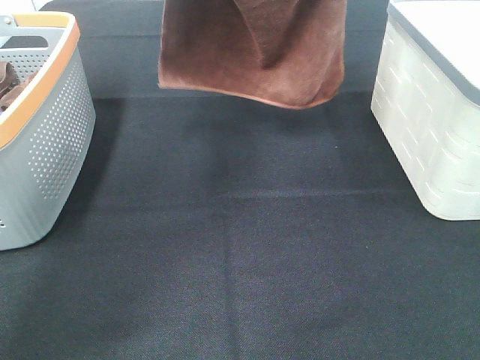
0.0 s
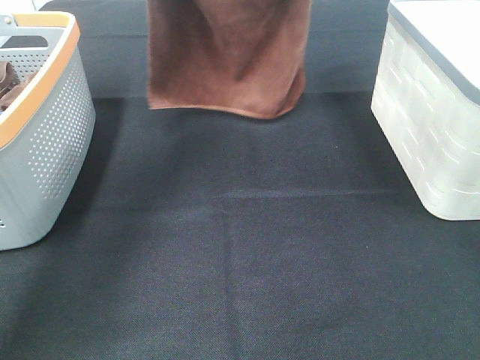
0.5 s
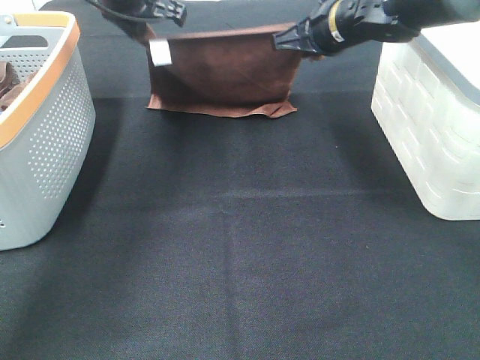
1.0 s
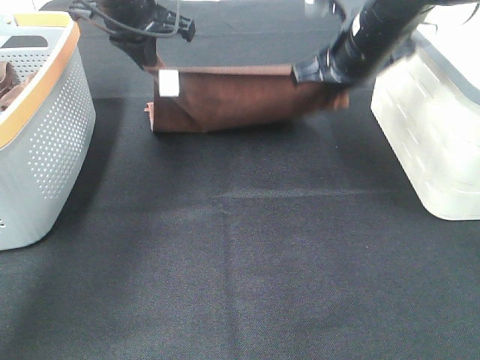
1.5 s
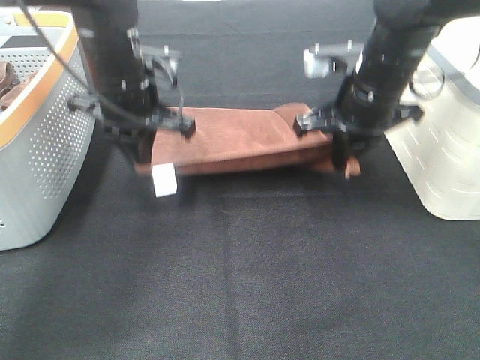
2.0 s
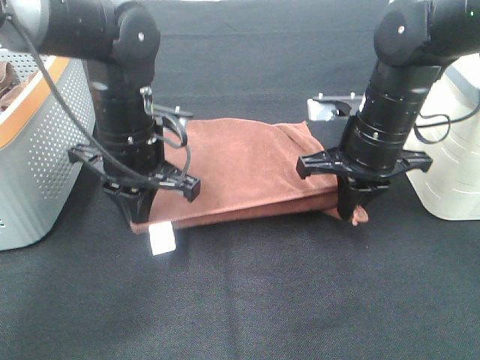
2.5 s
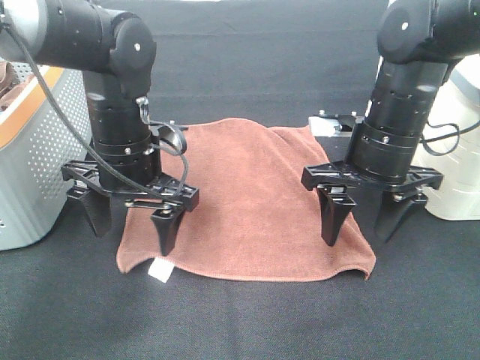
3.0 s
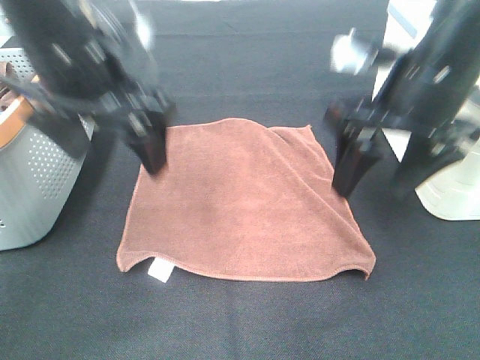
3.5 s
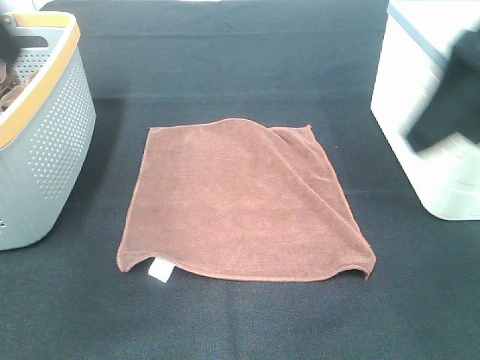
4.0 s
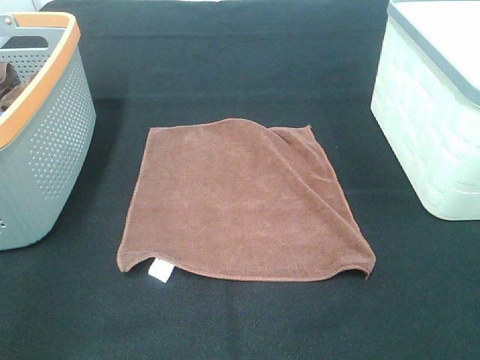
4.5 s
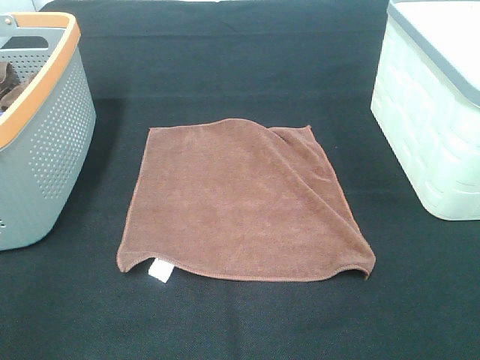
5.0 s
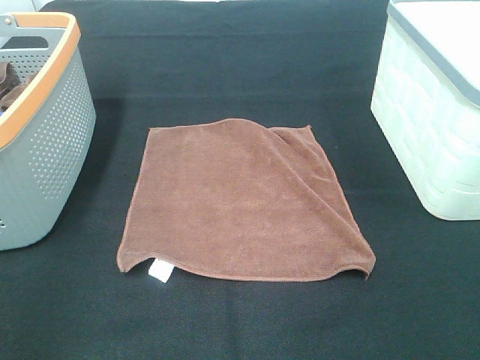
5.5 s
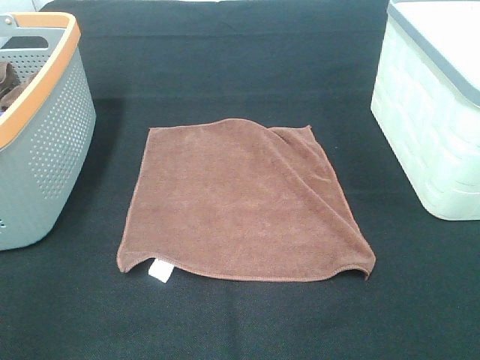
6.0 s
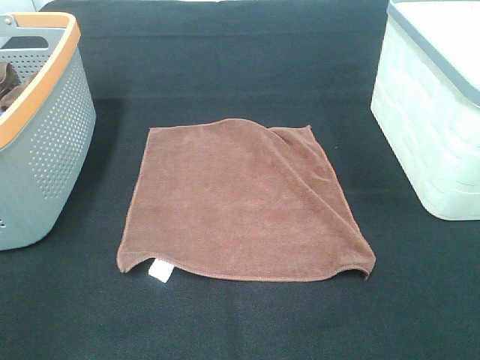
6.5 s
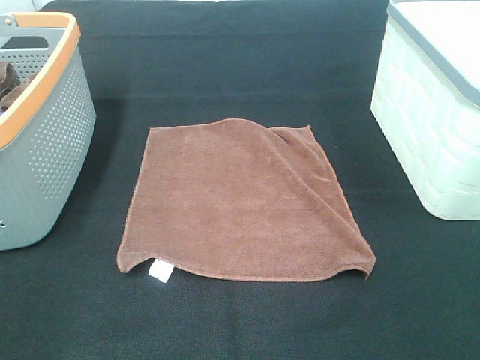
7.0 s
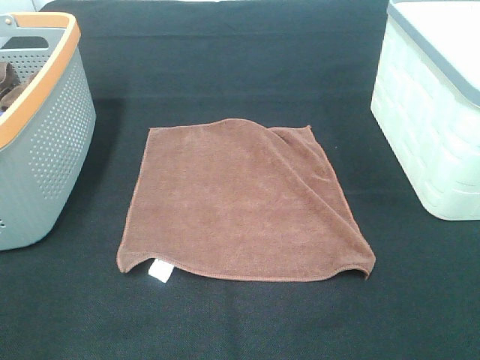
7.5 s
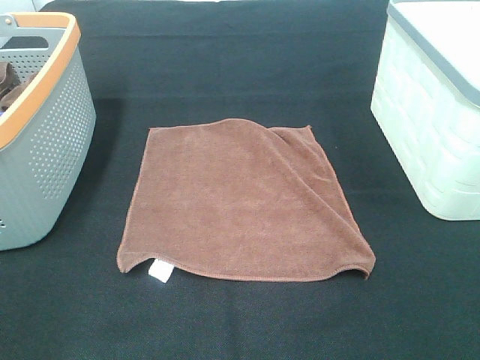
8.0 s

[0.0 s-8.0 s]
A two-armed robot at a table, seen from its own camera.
Task of the whole recording: Remove the towel and place it.
0.0 to 2.0 s: The grippers both shift downward by about 20 cm.
2.0 to 4.0 s: The left gripper shifts approximately 30 cm backward, upward and to the left, and opens up. Meanwhile the right gripper heads backward and upward, covering roughly 25 cm, and opens its fingers.
4.0 to 6.0 s: The right gripper travels backward, downward and to the right by approximately 15 cm. The left gripper is displaced backward, downward and to the left by some 20 cm.

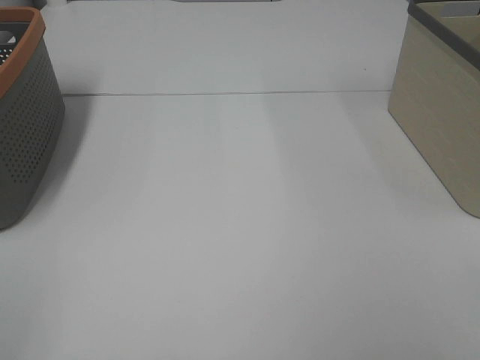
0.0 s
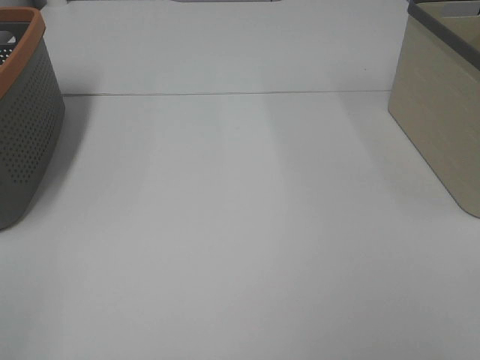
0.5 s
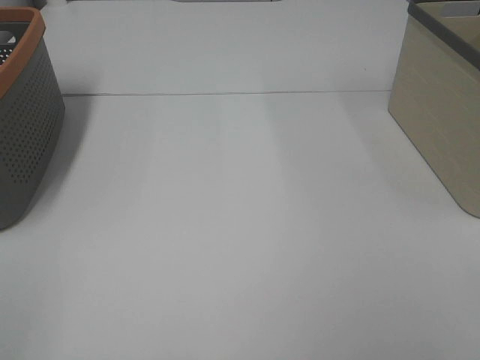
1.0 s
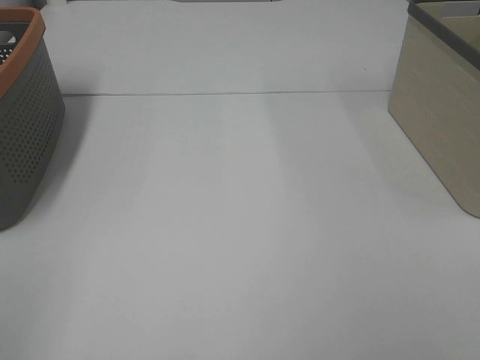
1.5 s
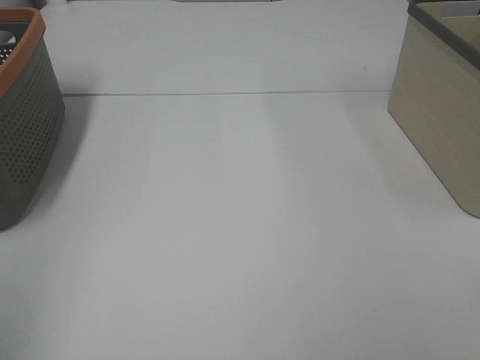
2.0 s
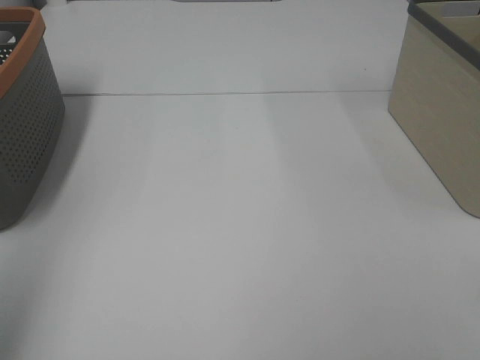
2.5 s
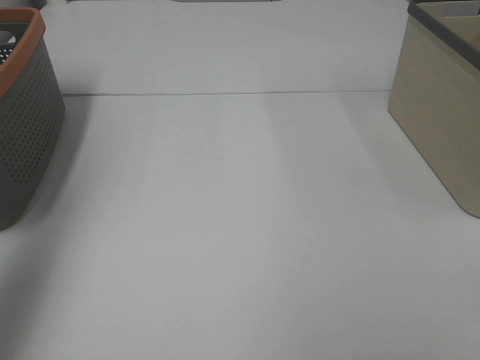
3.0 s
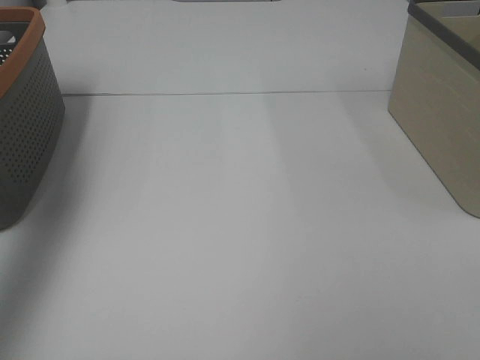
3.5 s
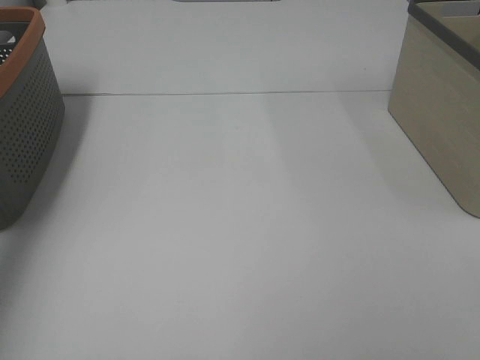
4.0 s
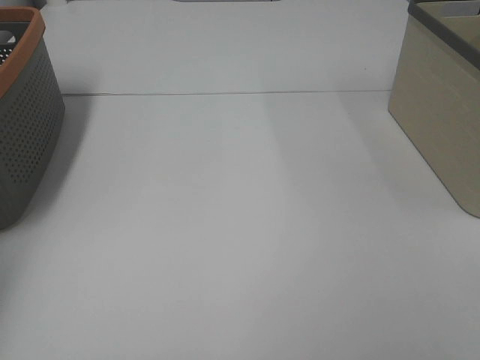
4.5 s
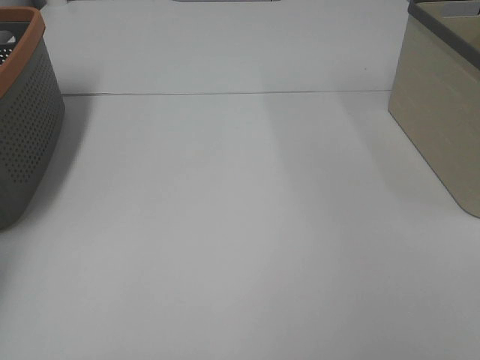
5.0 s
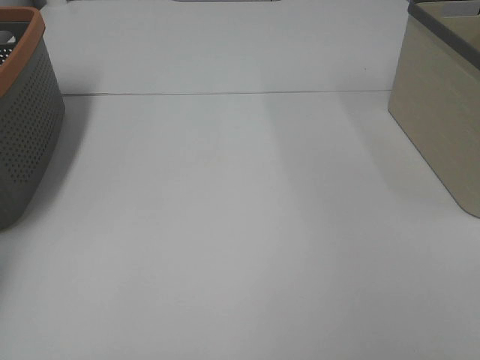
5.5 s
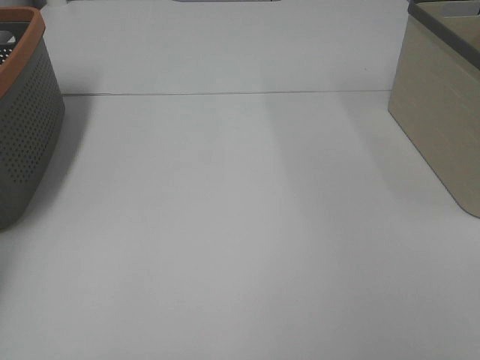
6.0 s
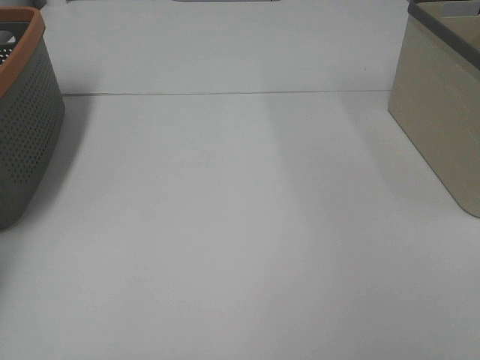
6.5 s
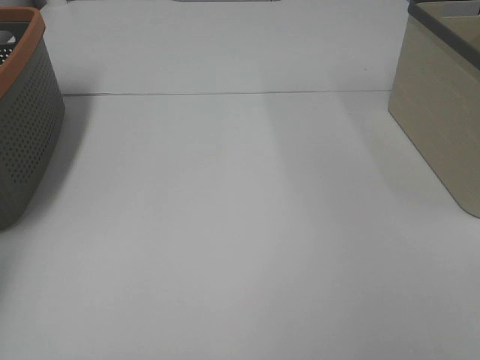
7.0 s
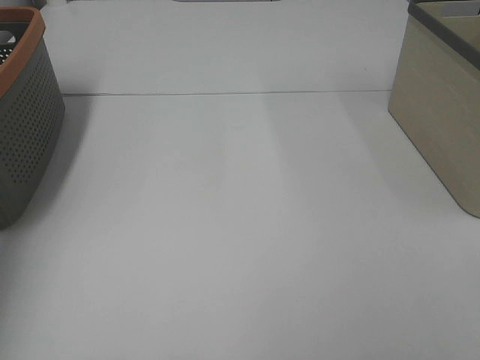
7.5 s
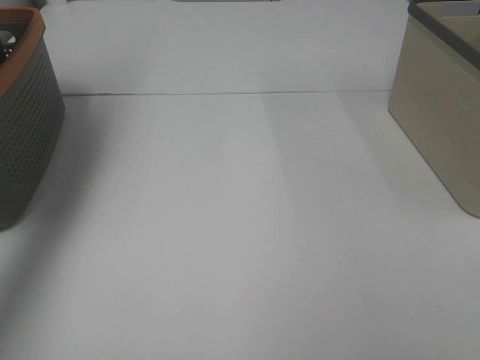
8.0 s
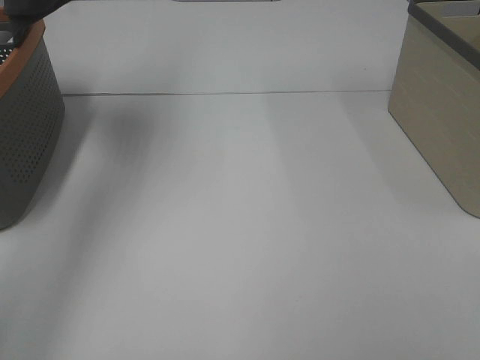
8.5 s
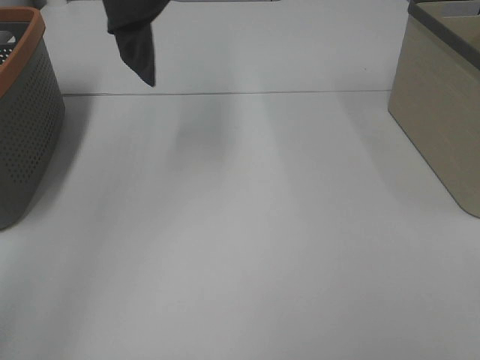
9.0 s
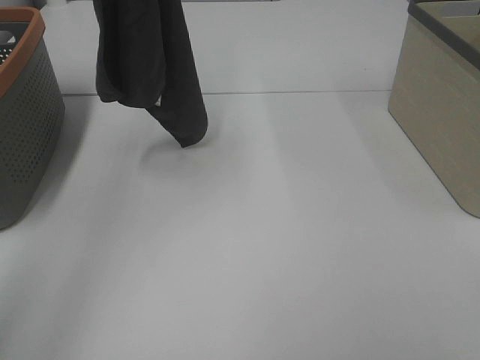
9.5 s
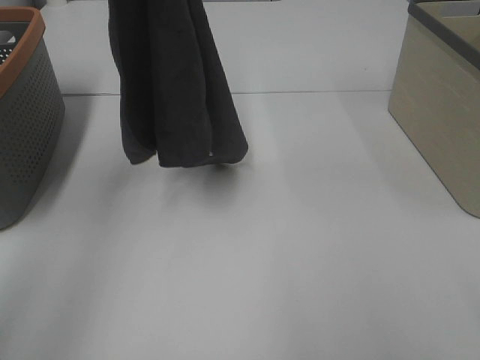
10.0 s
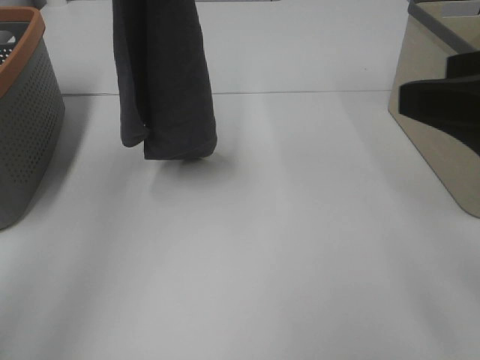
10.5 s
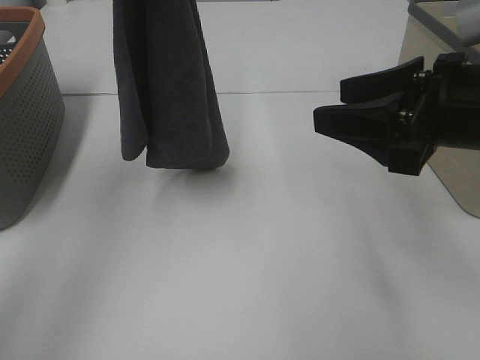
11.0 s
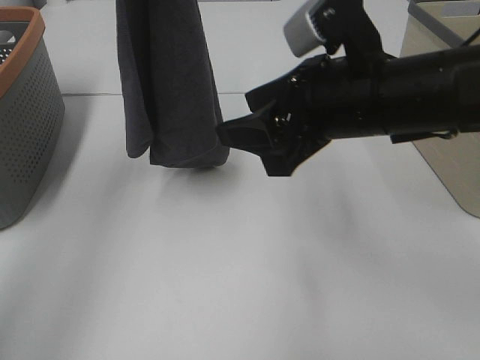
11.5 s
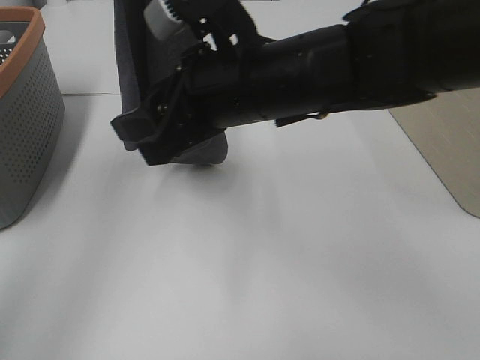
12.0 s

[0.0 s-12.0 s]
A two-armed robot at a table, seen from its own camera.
Task of the whole recording: Remove the towel and place it.
Step, 8.5 to 11.5 s: Right hand: grab a corner of the grey towel and straighten it.
2.0 to 4.0 s: The left gripper moves forward, approximately 35 cm.
4.0 to 6.0 s: The left gripper travels downward, forward and to the left by roughly 15 cm, and closes up.
6.0 to 8.0 s: The left gripper moves upward and to the right, about 30 cm, and closes its fingers.
8.0 to 10.0 s: The left gripper travels to the right by roughly 15 cm; the right gripper shifts by approximately 5 cm.
10.0 to 12.0 s: The right gripper travels to the left and forward by approximately 35 cm.

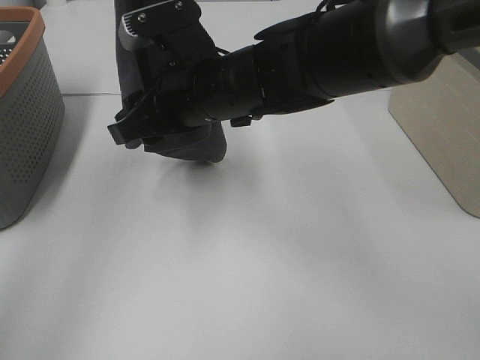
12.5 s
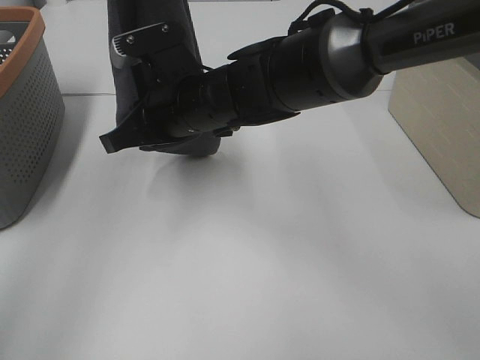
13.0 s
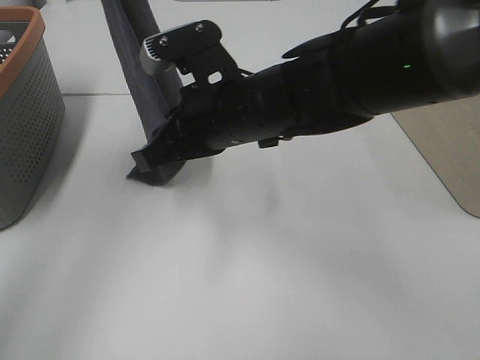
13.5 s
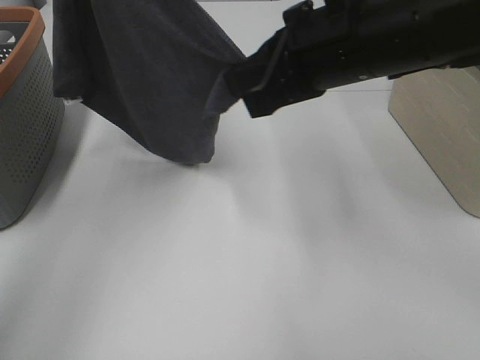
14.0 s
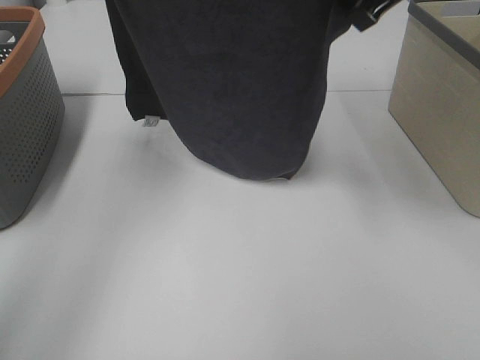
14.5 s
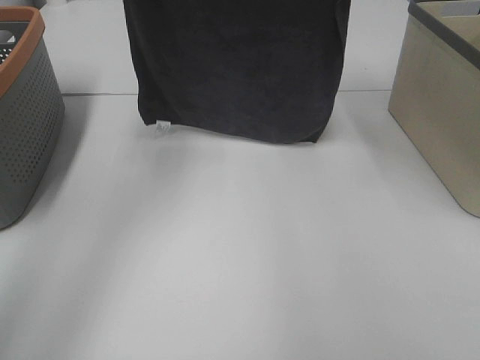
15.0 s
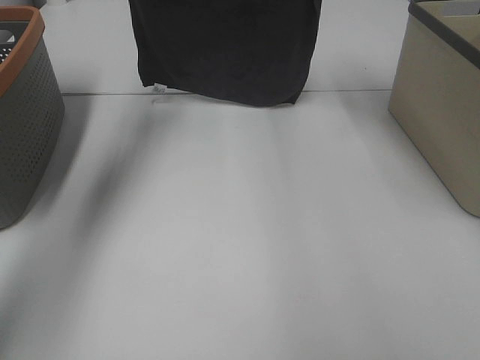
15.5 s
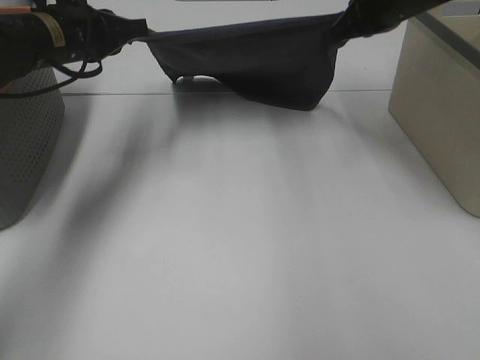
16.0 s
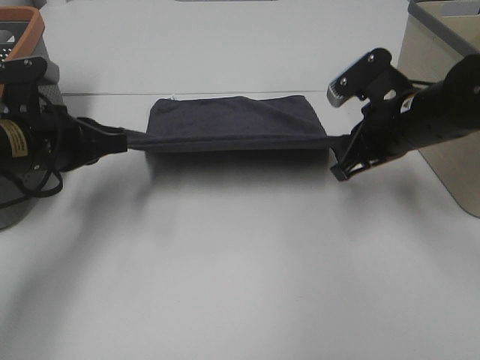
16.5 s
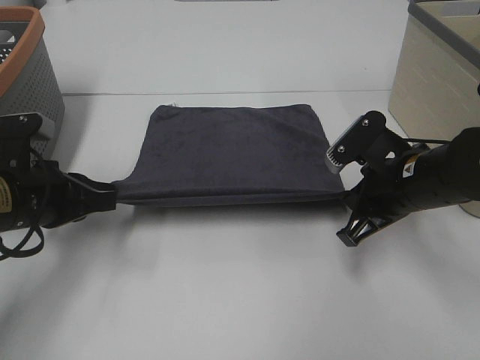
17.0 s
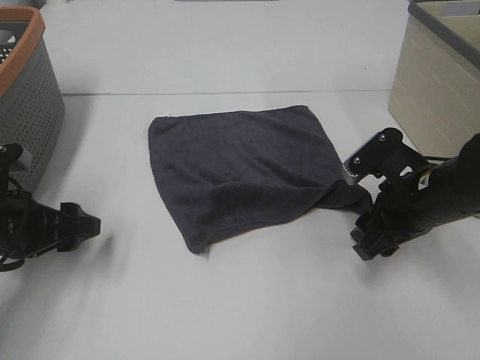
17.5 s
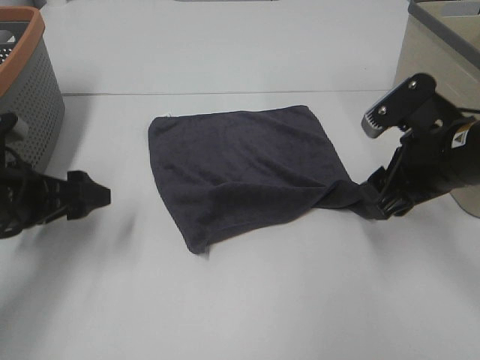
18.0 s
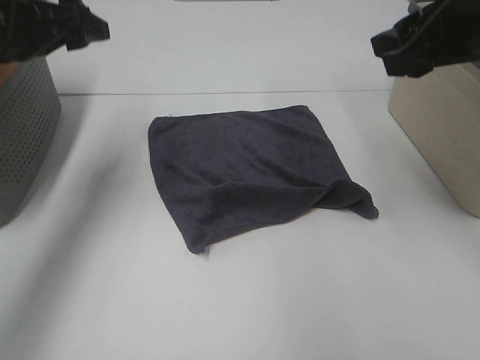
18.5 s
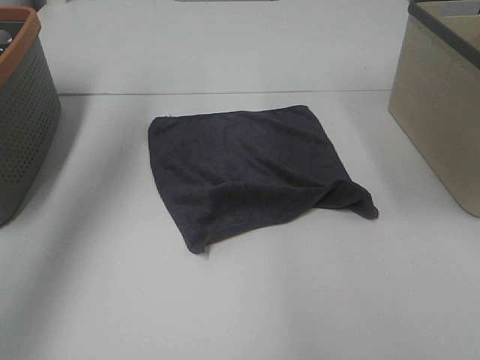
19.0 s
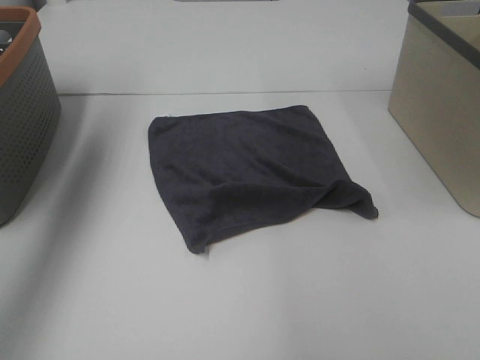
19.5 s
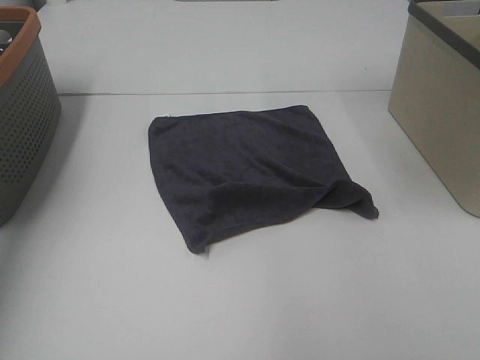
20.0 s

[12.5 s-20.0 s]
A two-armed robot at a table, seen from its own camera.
Task of the whole recording: Remove the towel and place it.
12.5 to 14.5 s: The right gripper goes roughly 25 cm to the right and upward, and closes. The left gripper moves downward and forward, approximately 10 cm.
14.5 to 16.5 s: The grippers both shift downward by approximately 25 cm.
16.5 to 18.0 s: The right gripper travels backward by roughly 5 cm, and opens its fingers, while the left gripper changes place by some 5 cm, and opens its fingers.
18.0 to 20.0 s: The right gripper shifts approximately 25 cm upward, while the left gripper moves upward and to the left, roughly 30 cm.
